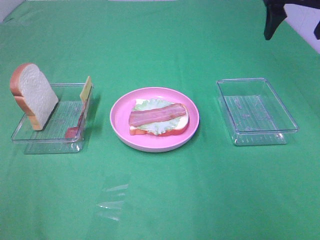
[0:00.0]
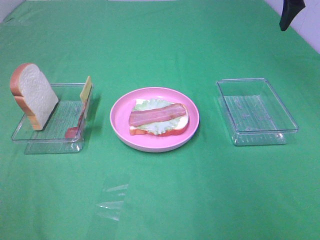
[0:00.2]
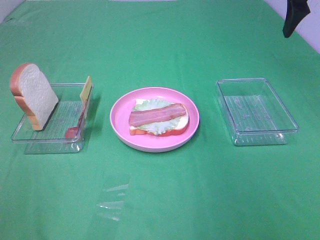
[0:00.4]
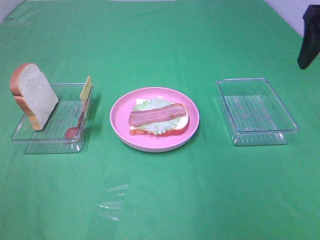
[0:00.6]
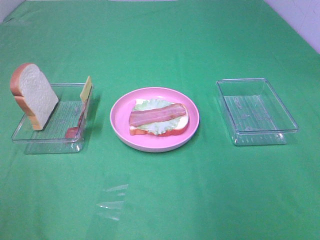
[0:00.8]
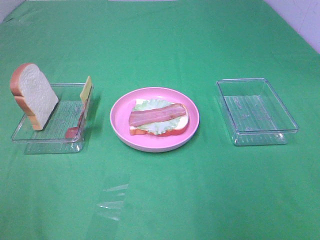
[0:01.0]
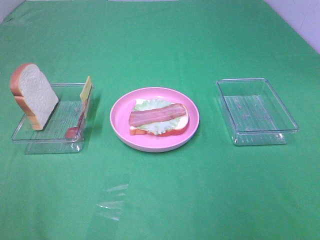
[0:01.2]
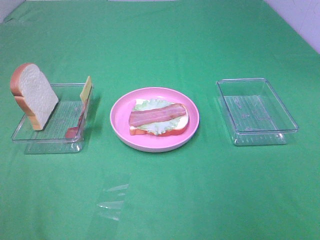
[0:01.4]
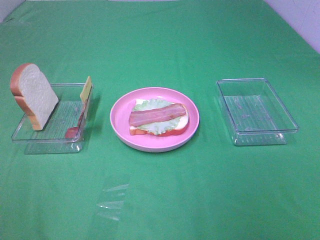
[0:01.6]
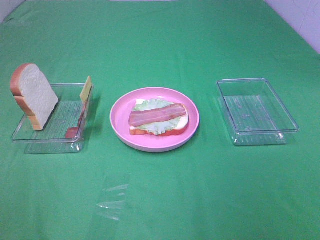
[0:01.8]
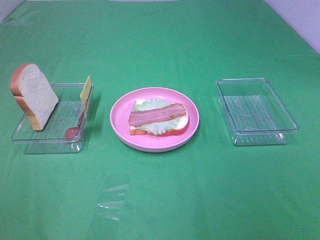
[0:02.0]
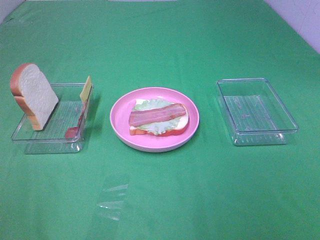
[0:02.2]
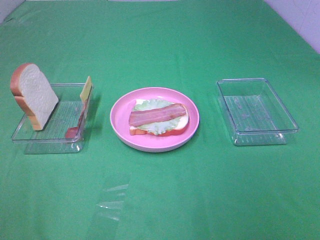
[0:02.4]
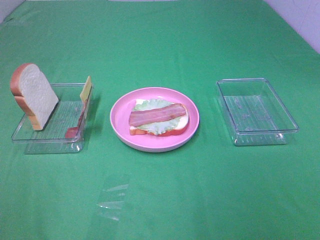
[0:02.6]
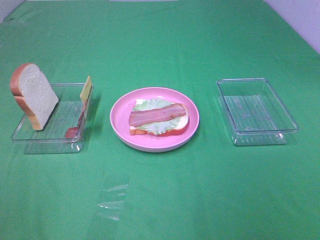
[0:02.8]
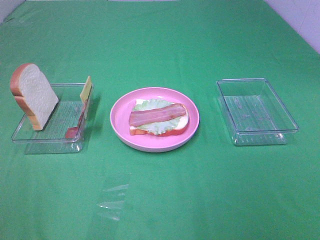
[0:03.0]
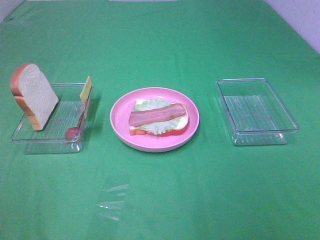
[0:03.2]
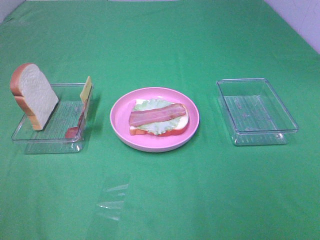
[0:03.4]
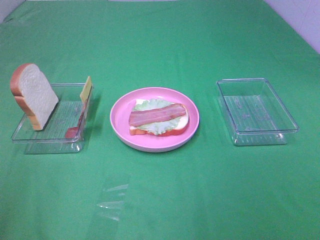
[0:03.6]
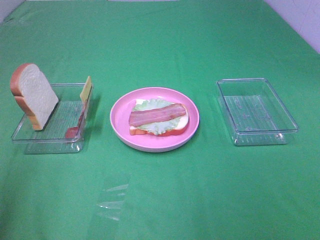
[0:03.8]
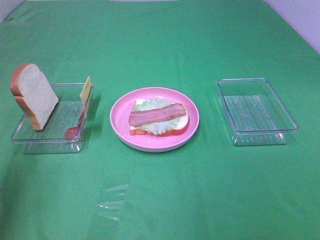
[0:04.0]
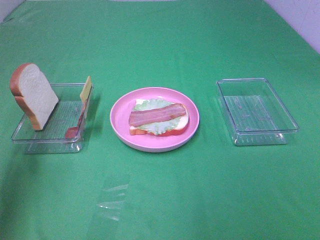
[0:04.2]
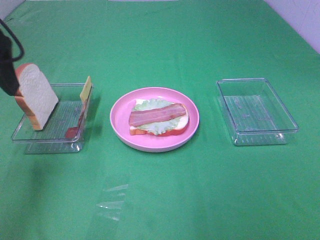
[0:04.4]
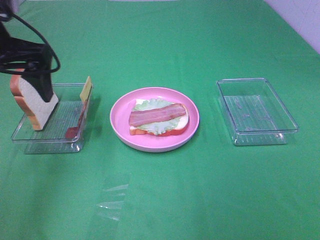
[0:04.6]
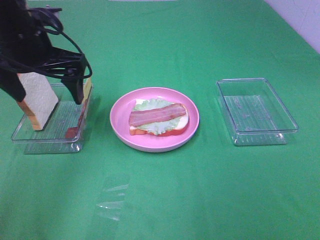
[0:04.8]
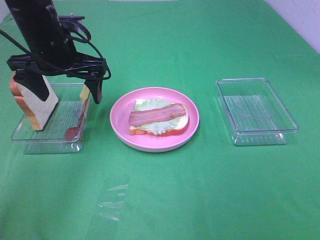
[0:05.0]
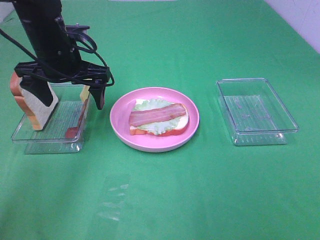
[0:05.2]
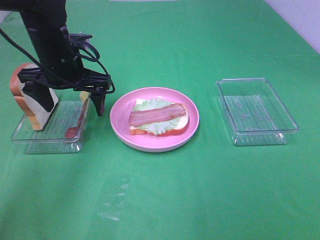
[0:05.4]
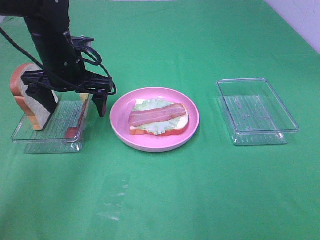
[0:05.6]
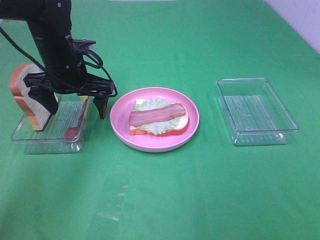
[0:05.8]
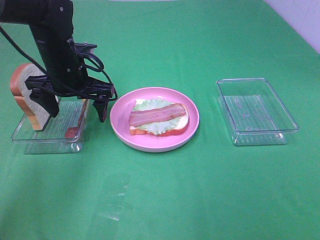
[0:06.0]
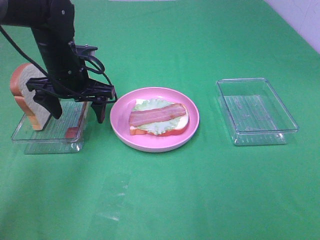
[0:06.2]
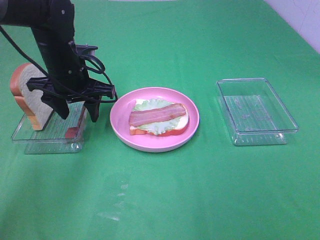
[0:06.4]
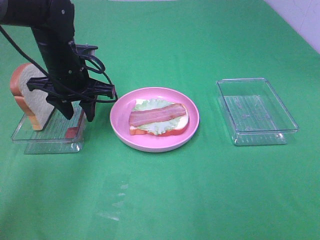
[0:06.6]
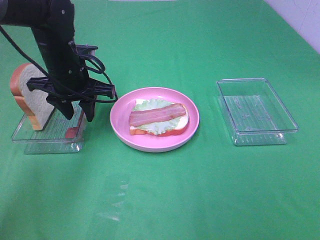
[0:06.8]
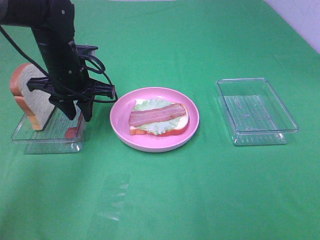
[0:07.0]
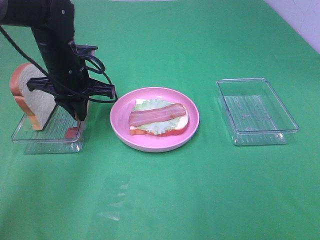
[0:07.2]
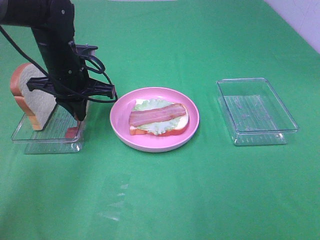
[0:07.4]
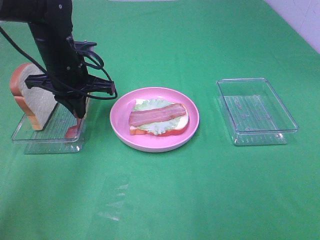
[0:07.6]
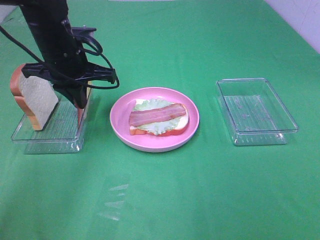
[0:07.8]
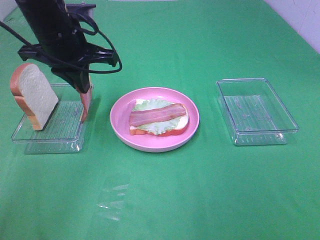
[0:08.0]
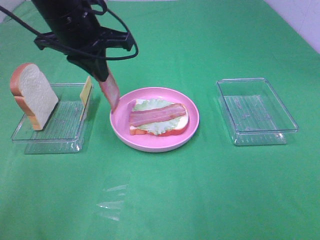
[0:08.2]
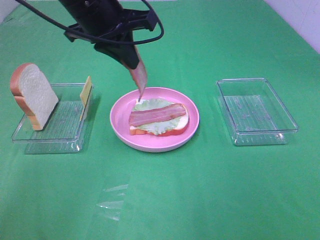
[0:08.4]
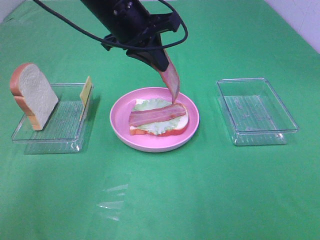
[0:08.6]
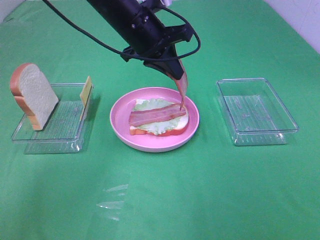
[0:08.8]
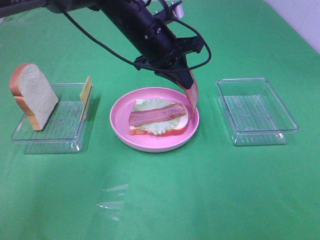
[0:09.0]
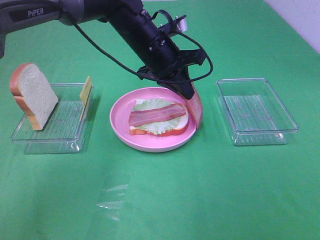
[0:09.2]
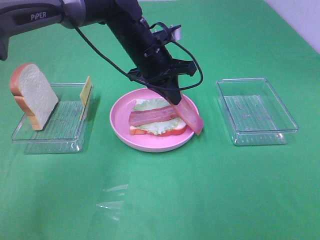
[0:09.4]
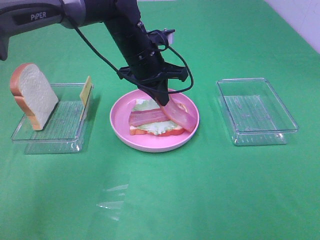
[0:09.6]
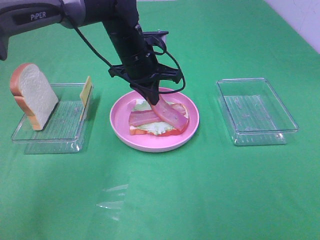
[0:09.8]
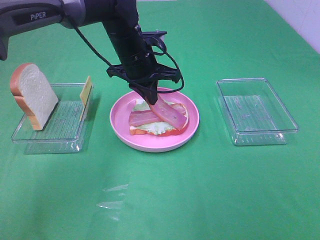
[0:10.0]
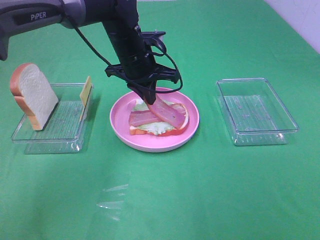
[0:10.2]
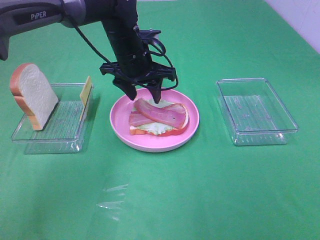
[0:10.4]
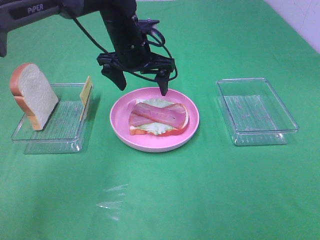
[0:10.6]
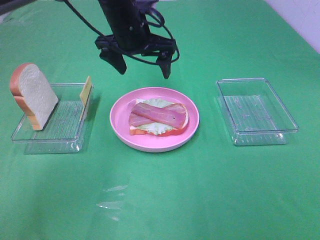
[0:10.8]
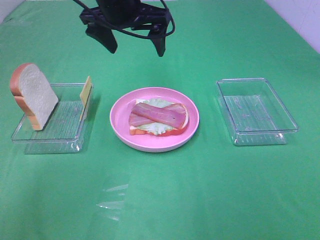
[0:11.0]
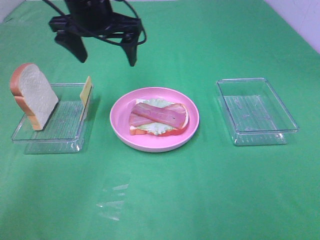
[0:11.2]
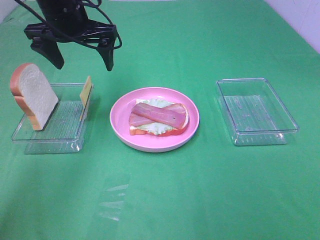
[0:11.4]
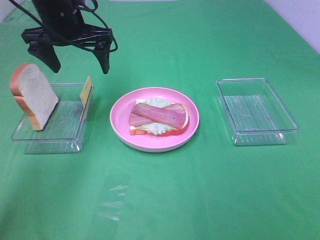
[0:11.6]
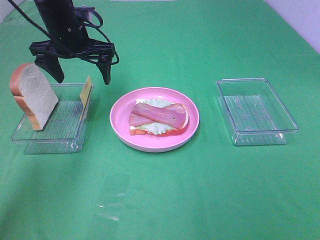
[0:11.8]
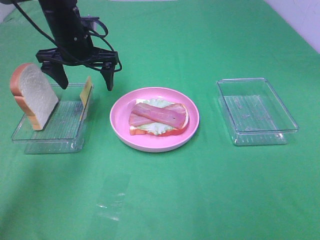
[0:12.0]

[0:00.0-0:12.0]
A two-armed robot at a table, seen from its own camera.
Task of the whole recording: Make sandwiches.
Step, 0:00.0 to 0:07.4: Left hand:grab the bacon.
Step, 0:07.6 to 0:10.4: Left hand:place bacon on bacon.
0:00.0 to 0:01.6: The right gripper is displaced backward by approximately 40 cm.
0:03.0 to 0:04.4: The left gripper heads forward, covering approximately 30 cm.
0:04.4 to 0:06.0: The left gripper travels downward, forward and to the right by roughly 20 cm.
0:06.0 to 0:07.6: The left gripper closes.
0:07.6 to 0:09.0: The left gripper is displaced to the right by about 15 cm.
0:09.0 to 0:10.4: The left gripper ends up roughly 5 cm from where it was, and opens.
0:10.4 to 0:12.0: The left gripper shifts approximately 10 cm to the left, and opens up.

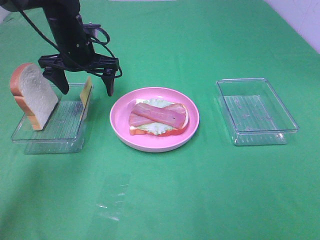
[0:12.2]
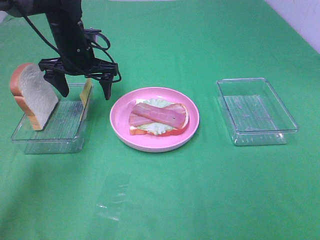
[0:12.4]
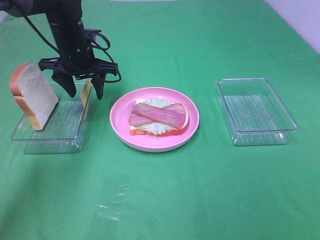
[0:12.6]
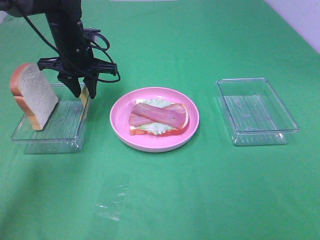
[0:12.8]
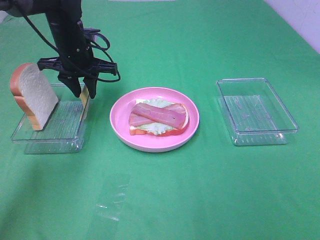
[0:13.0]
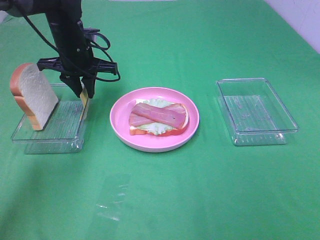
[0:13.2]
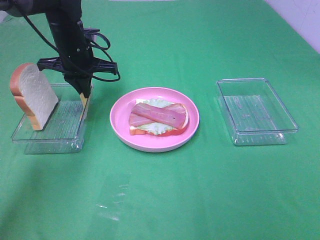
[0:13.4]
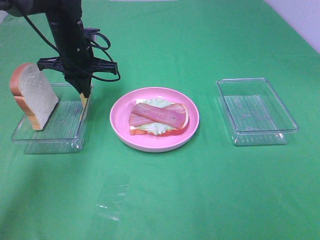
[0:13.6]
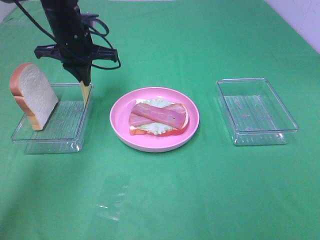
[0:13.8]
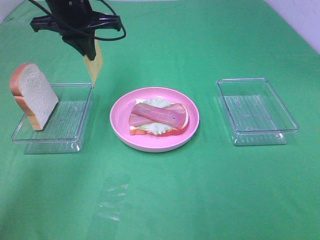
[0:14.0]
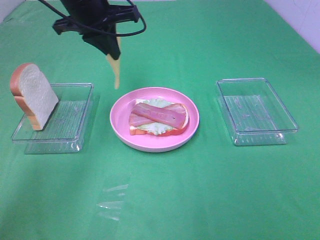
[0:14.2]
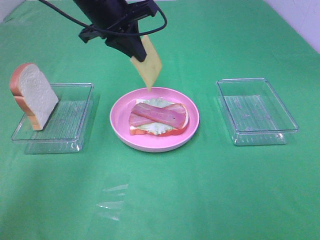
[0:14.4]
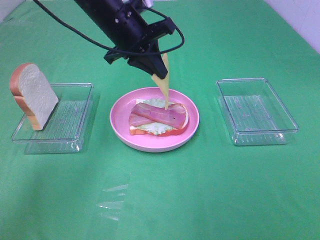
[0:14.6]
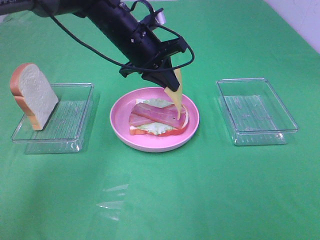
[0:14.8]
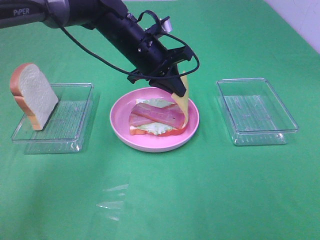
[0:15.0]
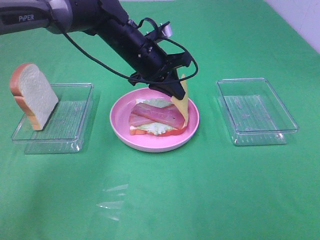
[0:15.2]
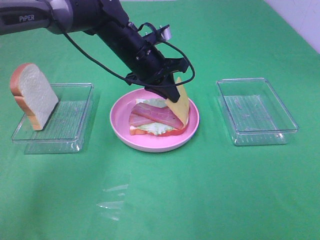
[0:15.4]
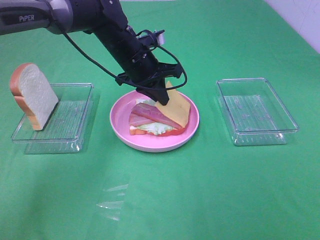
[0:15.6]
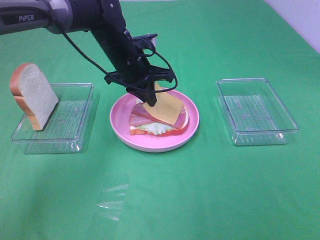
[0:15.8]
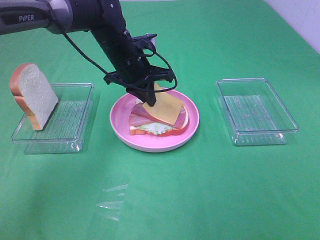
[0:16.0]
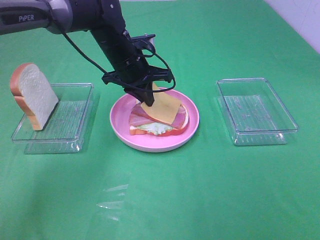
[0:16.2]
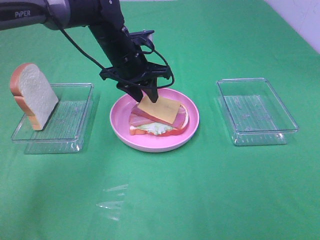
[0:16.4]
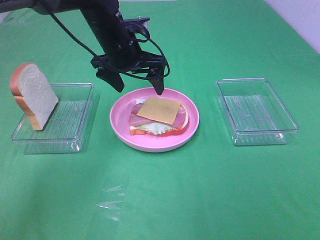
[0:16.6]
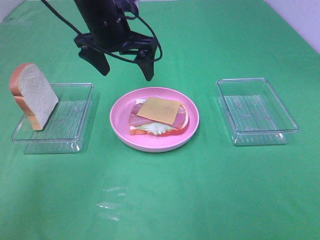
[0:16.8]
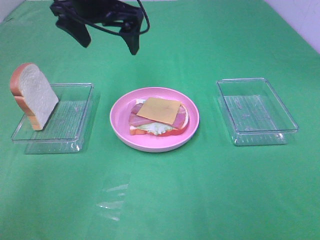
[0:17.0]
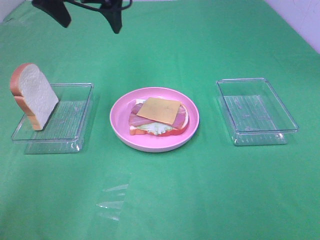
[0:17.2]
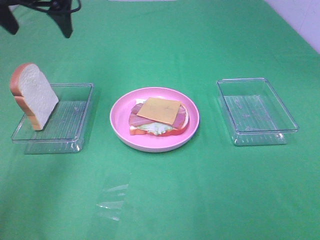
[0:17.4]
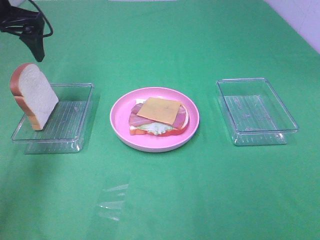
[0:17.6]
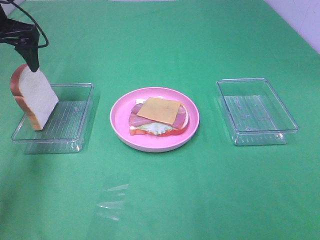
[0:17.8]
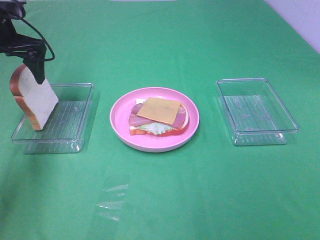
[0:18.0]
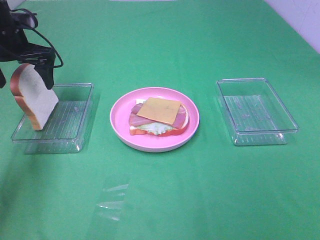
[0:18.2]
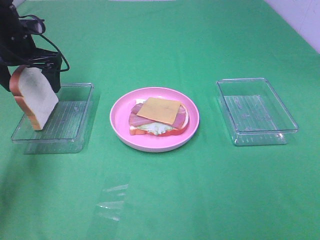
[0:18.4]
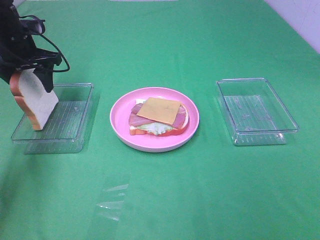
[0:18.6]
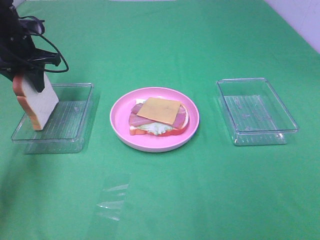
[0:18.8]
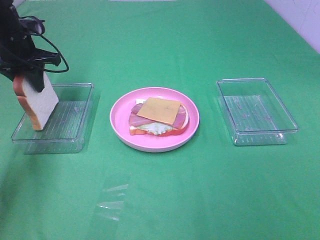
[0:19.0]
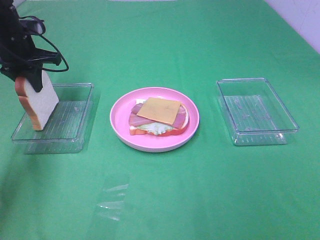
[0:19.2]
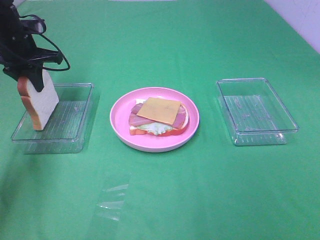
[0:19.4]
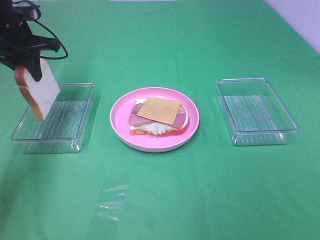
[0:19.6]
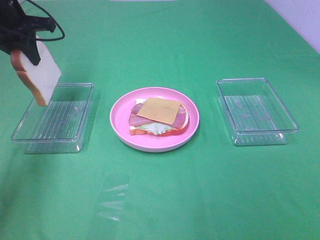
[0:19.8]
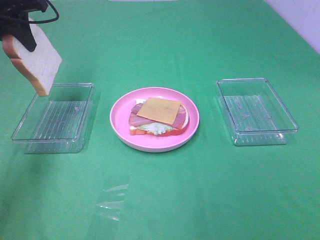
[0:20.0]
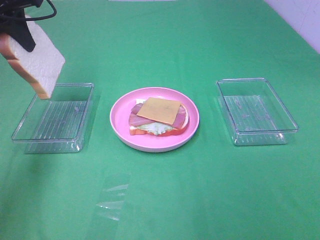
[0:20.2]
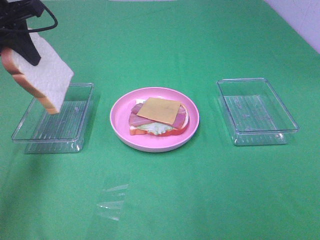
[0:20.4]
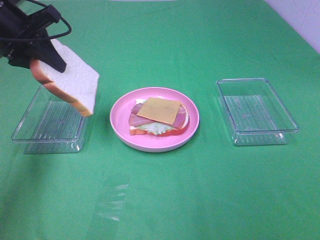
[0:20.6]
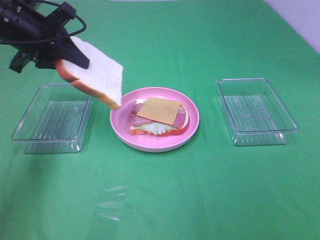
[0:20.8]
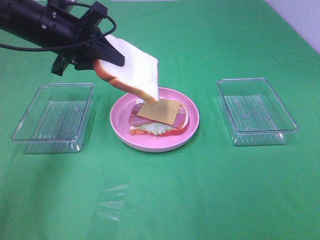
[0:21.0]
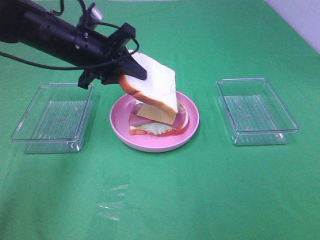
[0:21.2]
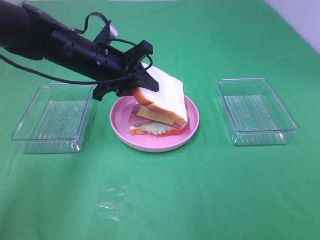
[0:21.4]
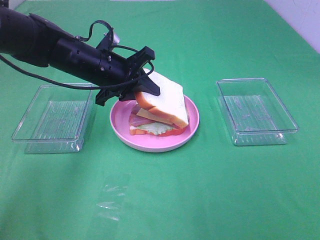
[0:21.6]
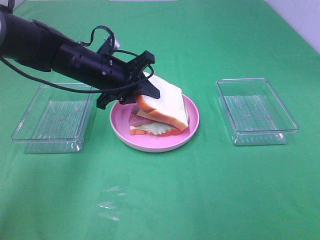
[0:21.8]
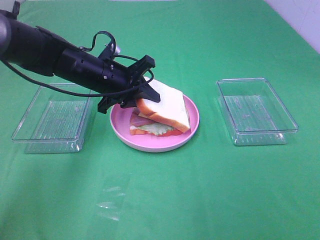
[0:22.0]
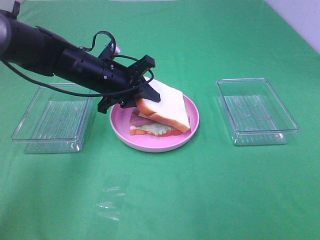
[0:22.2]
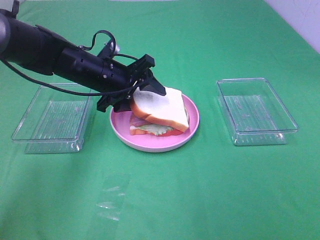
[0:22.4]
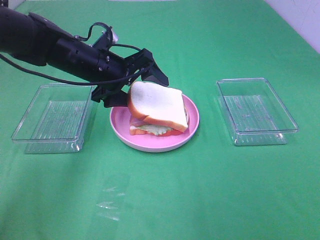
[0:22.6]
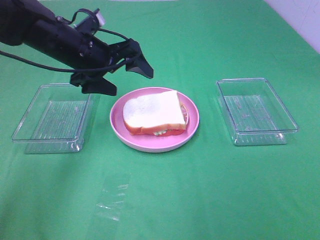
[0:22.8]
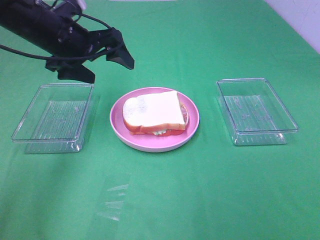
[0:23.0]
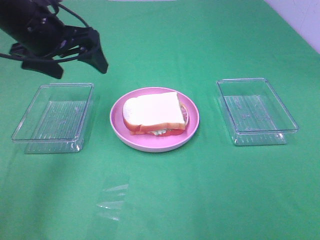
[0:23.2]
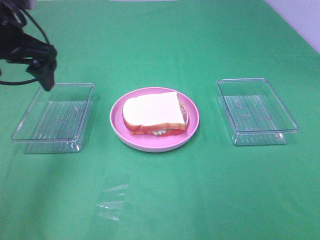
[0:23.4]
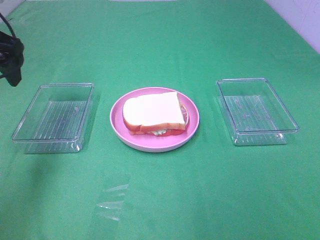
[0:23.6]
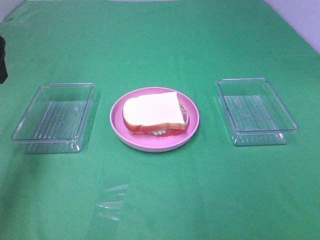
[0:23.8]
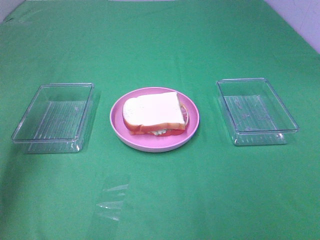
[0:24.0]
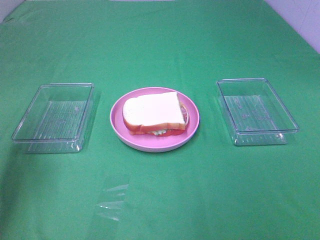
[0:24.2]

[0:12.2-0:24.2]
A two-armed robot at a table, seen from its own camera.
Task of the whole recording: Make sandwiches.
Step, 0:13.6 to 0:16.4: Left hand:place the cheese slice on top of the bacon.
Step, 0:16.6 to 0:19.4: Left hand:grab the bread slice.
Step, 0:19.6 to 0:22.8: Left hand:place the bread slice on the cheese slice.
0:12.2 to 0:13.8: The left gripper closes its fingers.
0:13.8 to 0:15.2: The left gripper moves to the right, approximately 10 cm.
0:15.2 to 0:16.6: The left gripper opens its fingers.
0:16.6 to 0:18.2: The left gripper travels to the left by some 20 cm.
0:18.2 to 0:19.8: The left gripper heads upward, covering about 5 cm, and closes up.
0:19.8 to 0:21.2: The left gripper moves to the right, downward and backward, approximately 15 cm.
0:21.2 to 0:22.6: The left gripper opens its fingers.
0:22.6 to 0:24.2: The left gripper heads to the left, backward and upward, covering roughly 30 cm.
